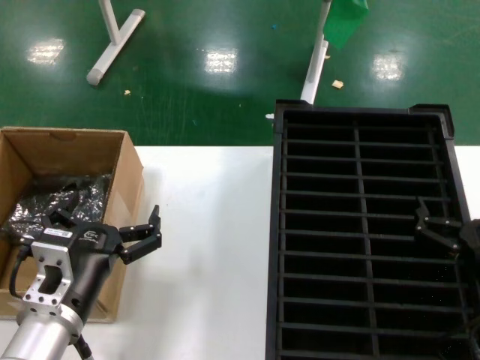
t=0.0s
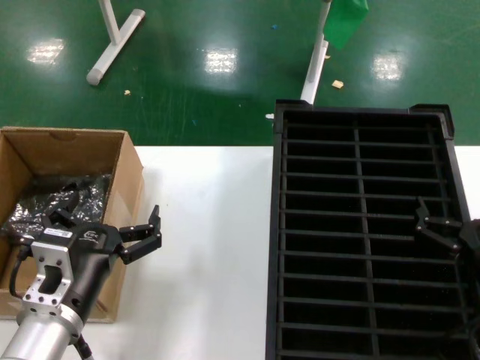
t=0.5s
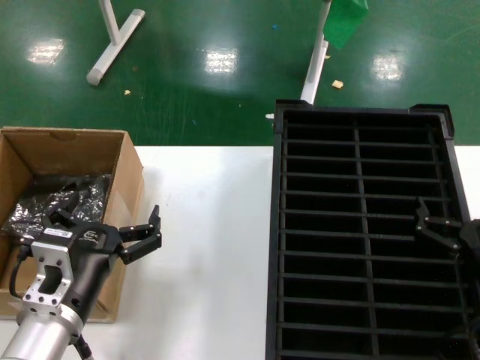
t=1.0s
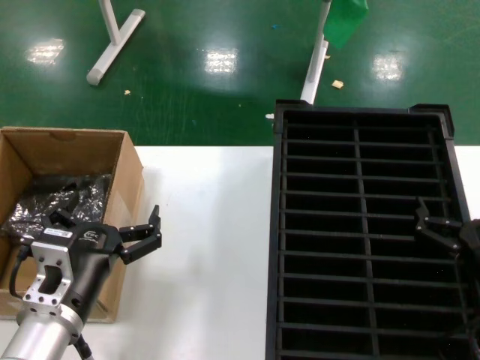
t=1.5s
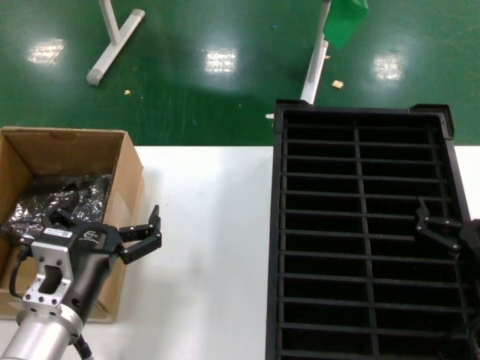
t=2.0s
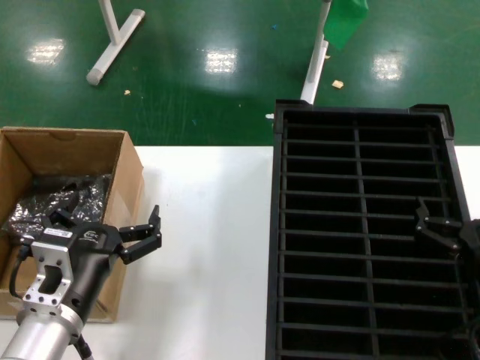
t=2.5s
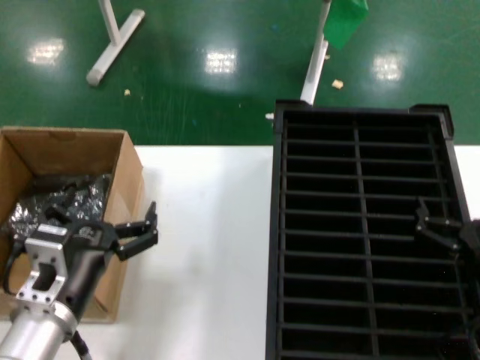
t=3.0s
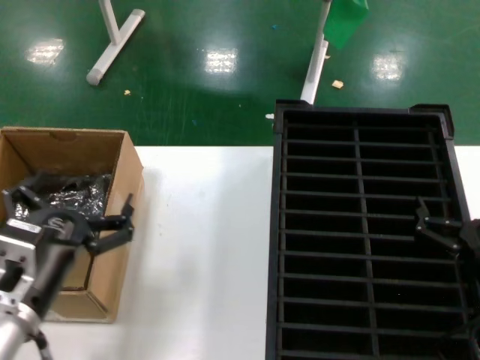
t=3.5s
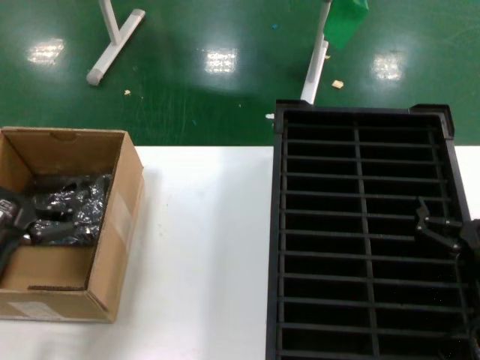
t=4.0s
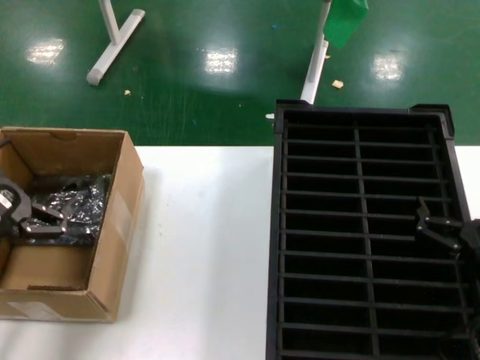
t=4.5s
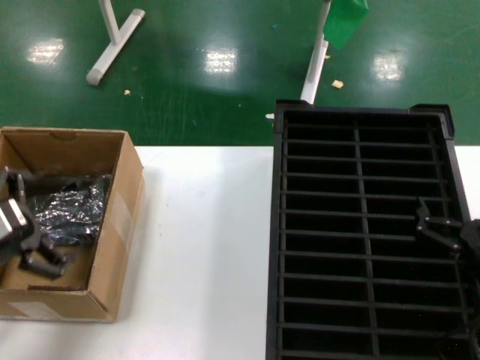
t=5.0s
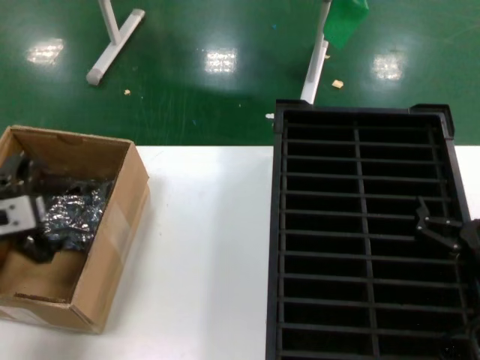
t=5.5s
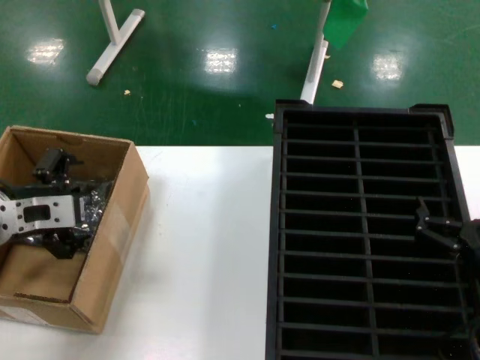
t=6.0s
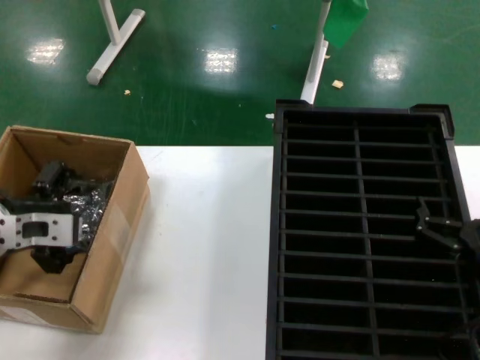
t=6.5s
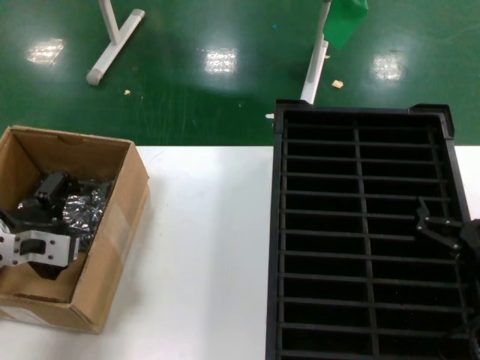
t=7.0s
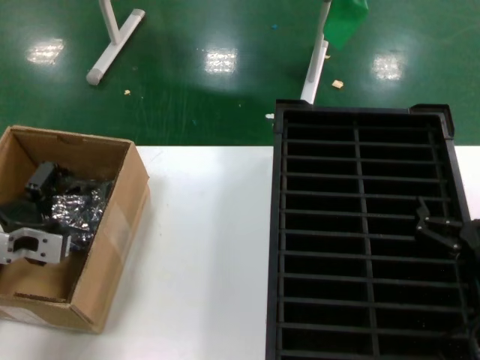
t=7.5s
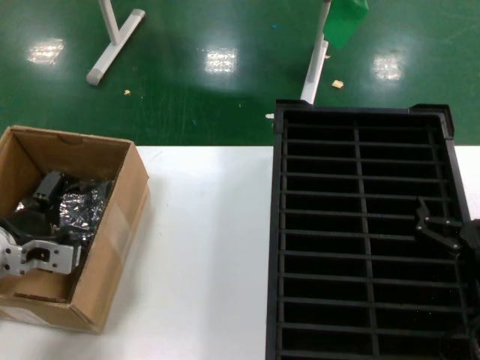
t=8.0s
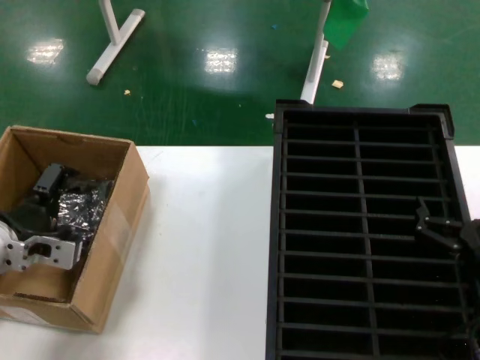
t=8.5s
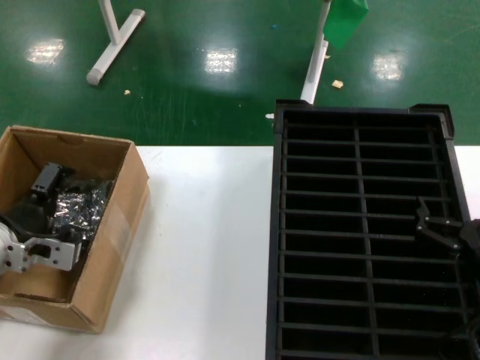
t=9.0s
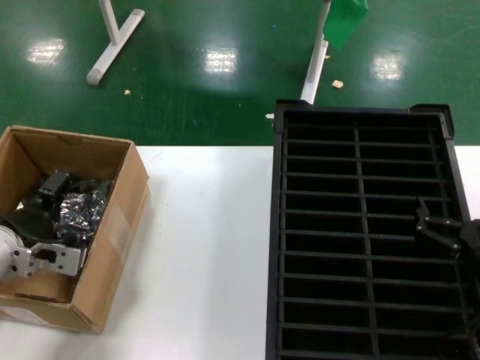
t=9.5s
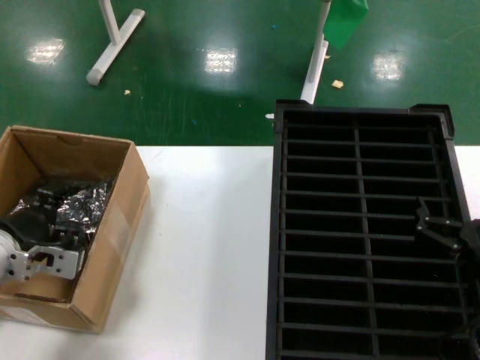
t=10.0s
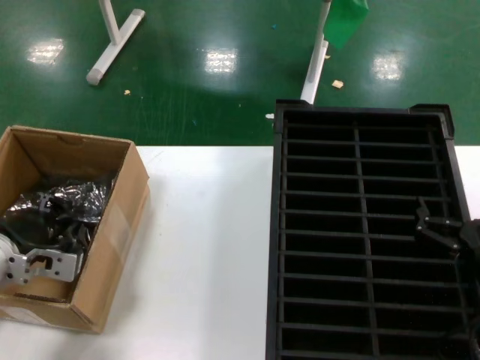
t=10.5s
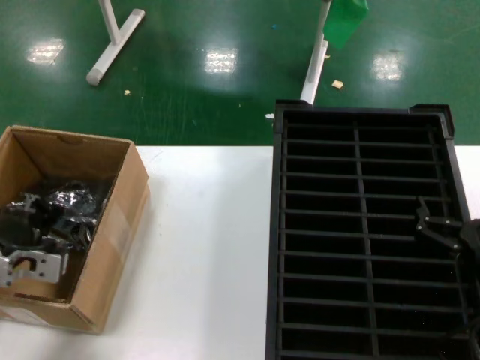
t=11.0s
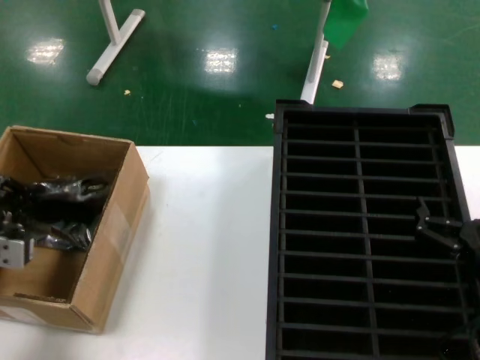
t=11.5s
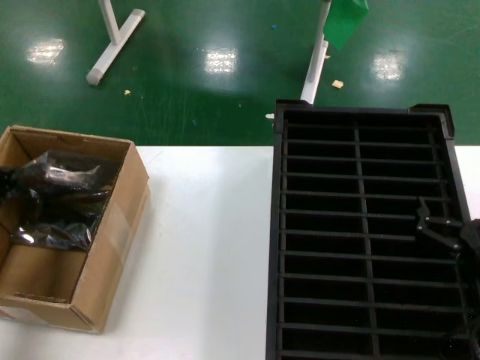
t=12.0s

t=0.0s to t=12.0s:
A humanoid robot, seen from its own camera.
Task of the whole recording: take out graphics card from box remove packaging put into black container.
Step, t=0.0s to t=10.5s: Grasp the bag.
t=0.0s to t=2.0s: Neither hand changes place.
t=2.0s to t=4.0s: The left hand shifts about 10 cm to the left and upward.
t=4.0s to t=6.0s: The left hand travels forward by some 15 cm.
t=6.0s to t=8.0s: The left hand heads downward, covering about 5 cm.
t=8.0s to t=10.0s: The hands move only a little.
t=10.0s to t=12.0s: The left hand goes approximately 10 cm to the left.

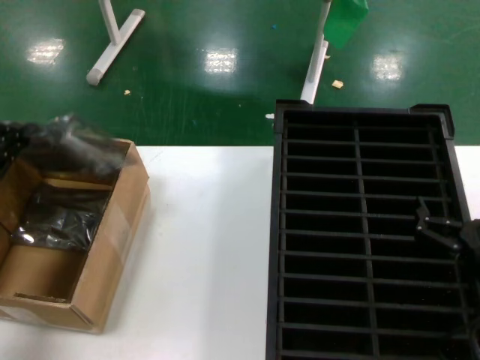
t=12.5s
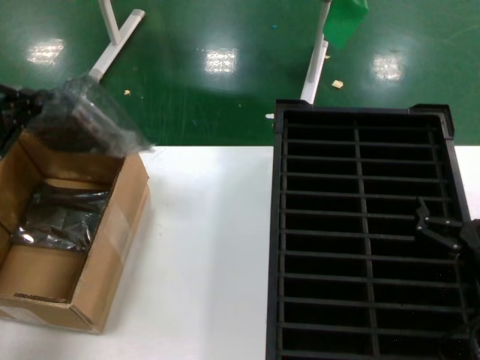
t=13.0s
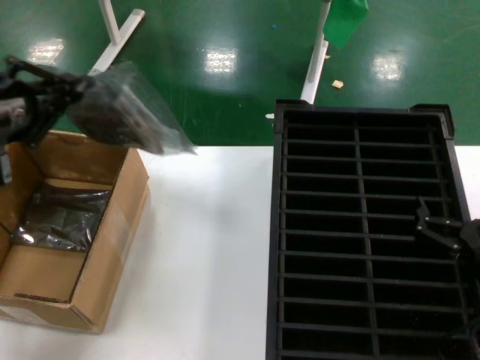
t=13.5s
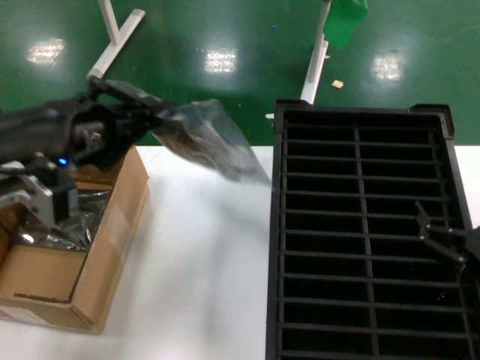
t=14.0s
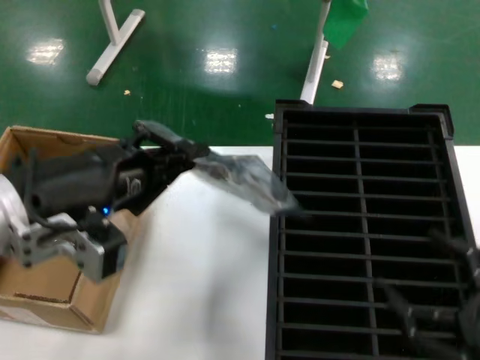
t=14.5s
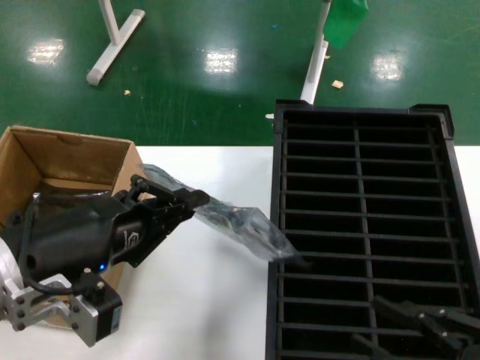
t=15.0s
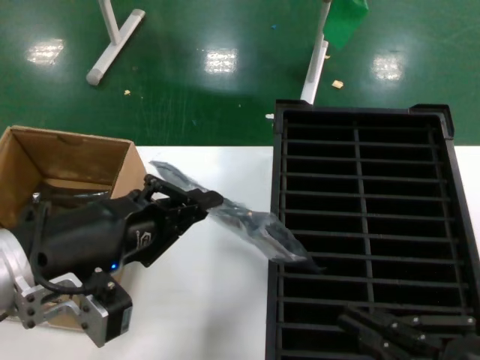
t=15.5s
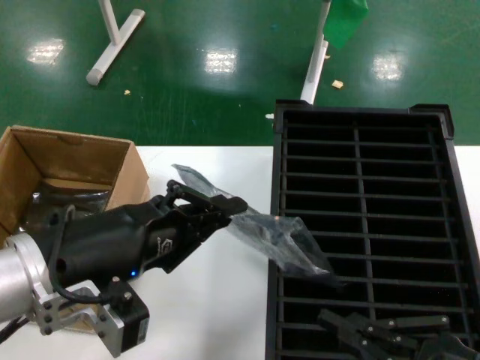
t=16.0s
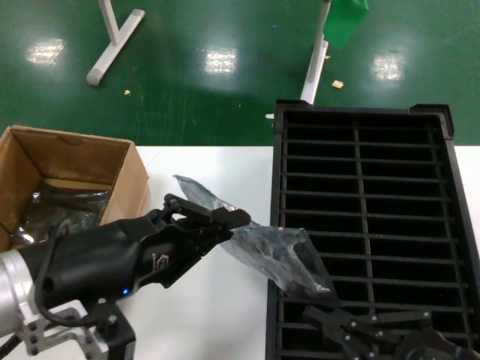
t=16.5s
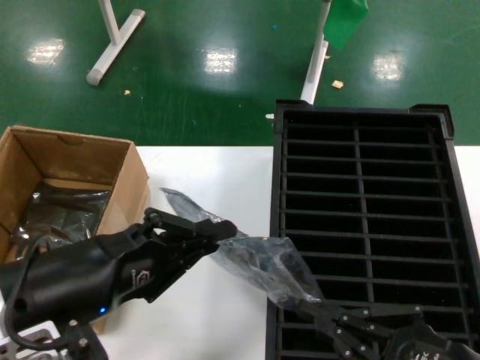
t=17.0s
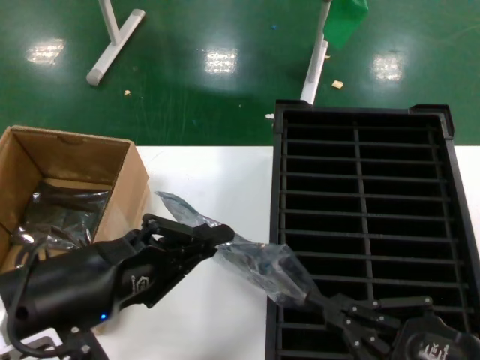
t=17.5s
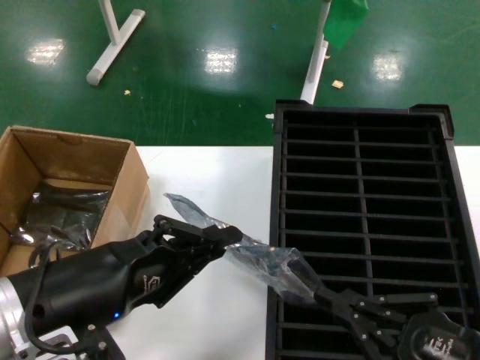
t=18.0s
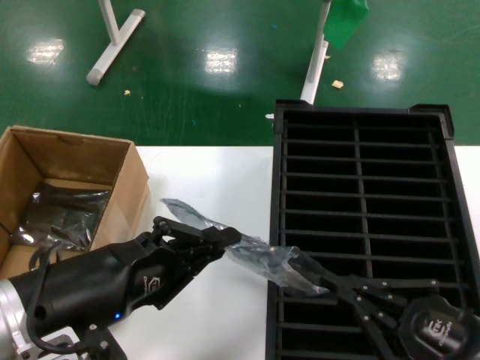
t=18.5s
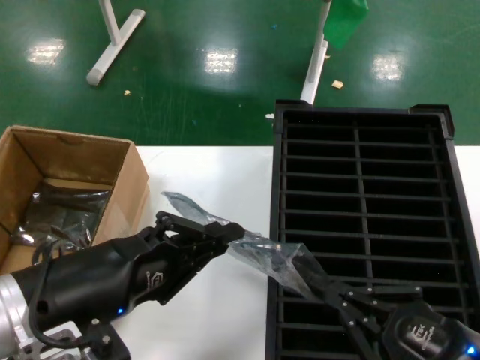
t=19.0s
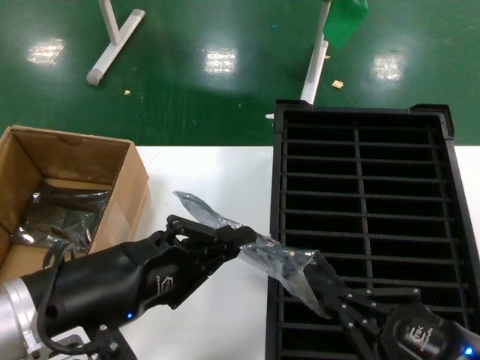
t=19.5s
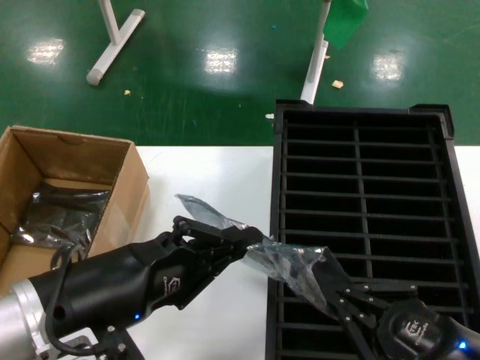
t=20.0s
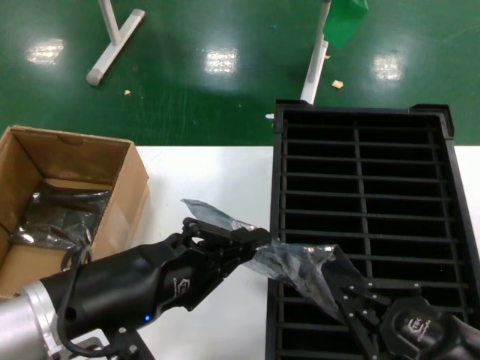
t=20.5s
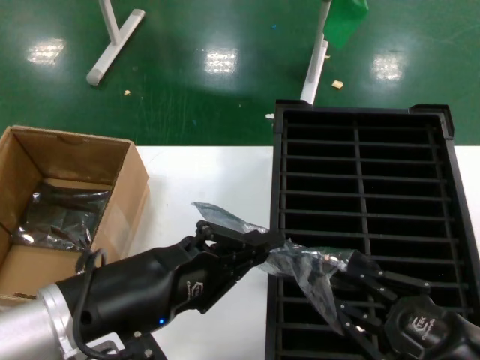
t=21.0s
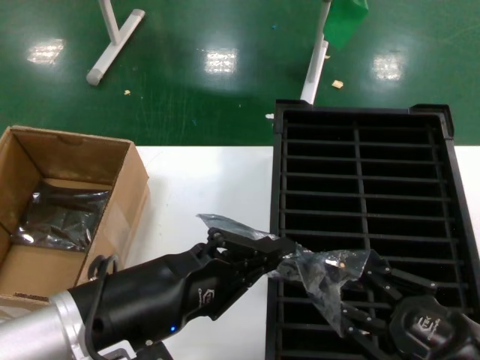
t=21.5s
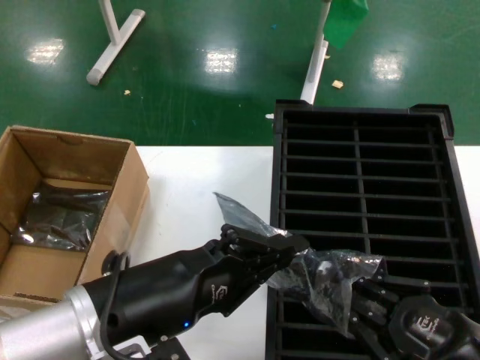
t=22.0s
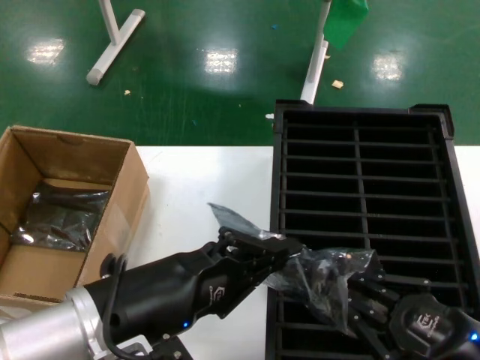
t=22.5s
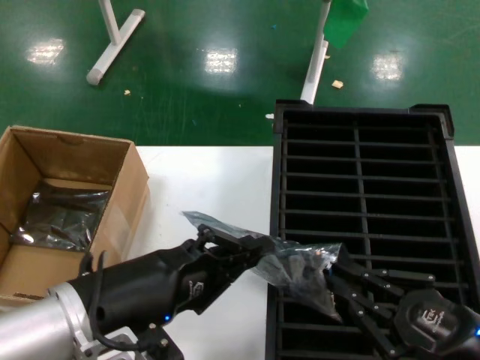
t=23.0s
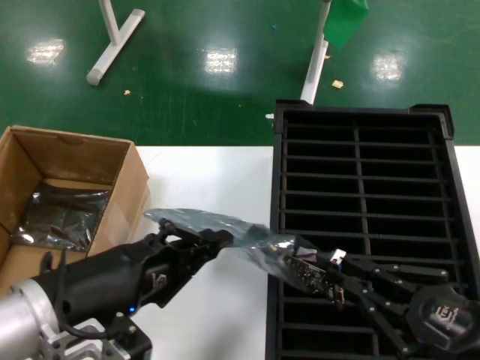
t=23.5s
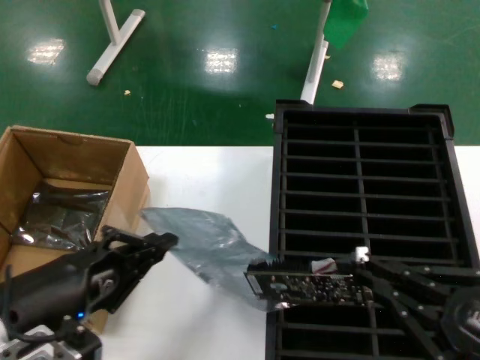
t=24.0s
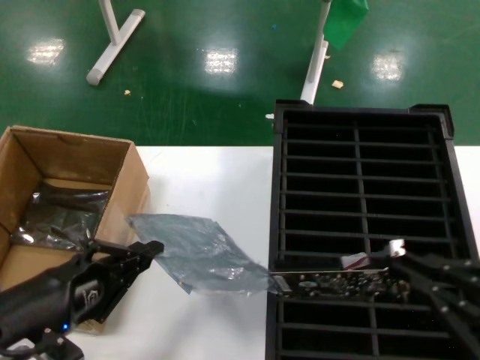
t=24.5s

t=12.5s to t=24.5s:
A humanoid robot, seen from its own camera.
Task of the whole recording: take out graphics card from box remove packaging put into black container.
Step, t=12.5s to t=14.5s: Lift the bag.
Step, t=15.0s to t=24.0s: Take out the hard disk of the bag.
t=12.5s to t=14.5s: The right hand goes about 10 cm backward, while the left hand heads to the right, covering roughly 15 cm.
t=14.5s to t=16.5s: The left hand moves some 5 cm.
t=16.5s to t=22.5s: The hands move only a little.
t=22.5s to t=24.5s: The right hand heads upward and to the right, covering roughly 10 cm, while the left hand heads to the left, covering roughly 10 cm.

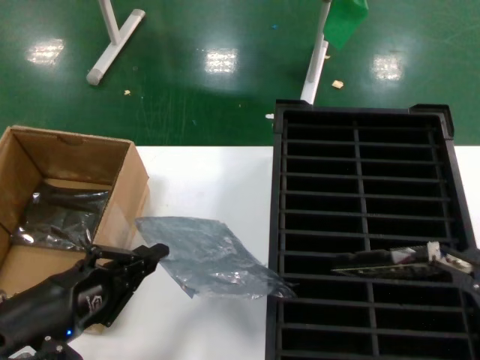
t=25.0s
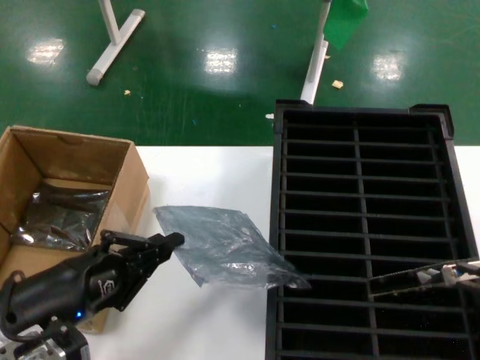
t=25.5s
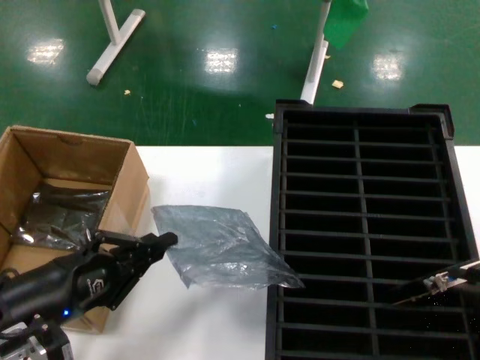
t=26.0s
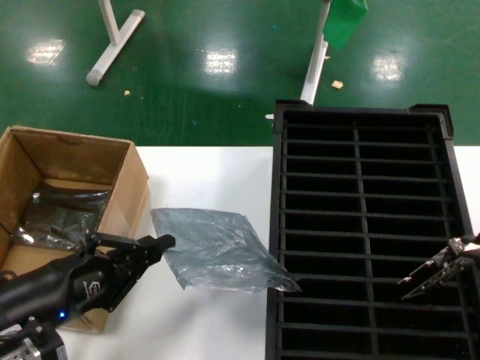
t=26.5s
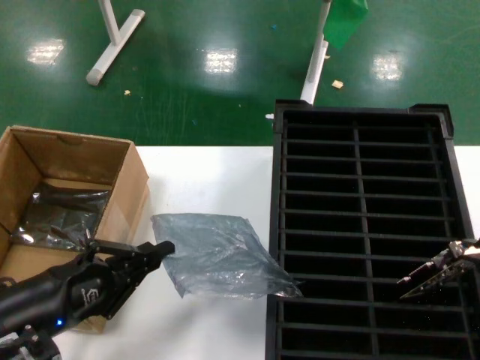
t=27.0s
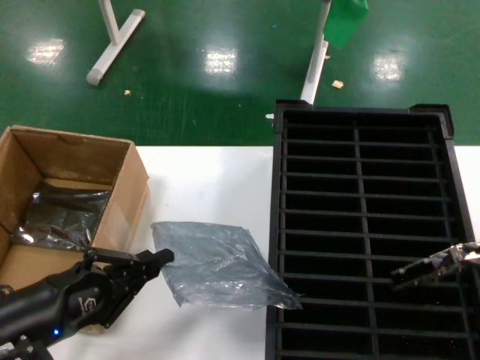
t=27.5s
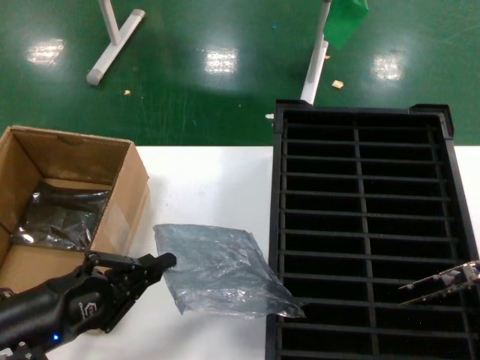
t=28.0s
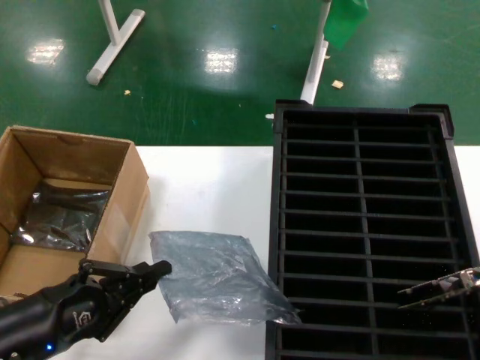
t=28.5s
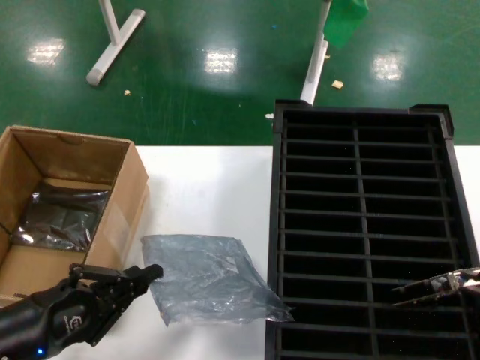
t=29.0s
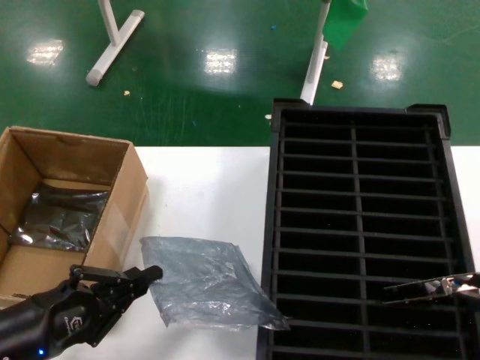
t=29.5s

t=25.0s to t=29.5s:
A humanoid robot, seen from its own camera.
Task of the whole recording: take out graphics card from box remove packaging put into black container.
t=25.0s to t=27.0s: The right hand moves upward, roughly 5 cm; the left hand ends up some 5 cm from where it was.
t=27.0s to t=29.5s: The hands make only small movements.
